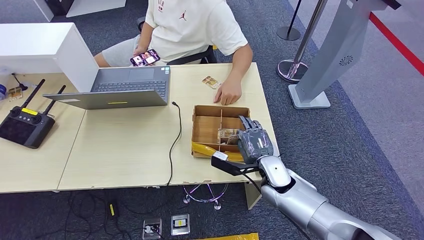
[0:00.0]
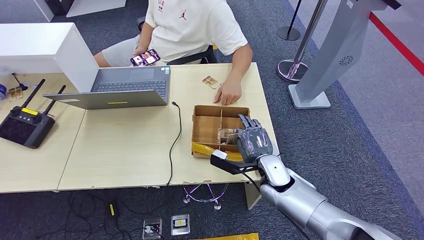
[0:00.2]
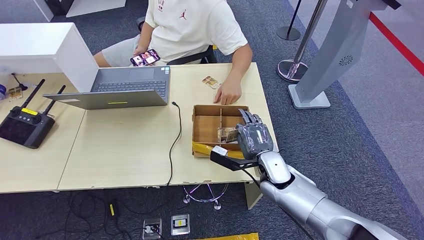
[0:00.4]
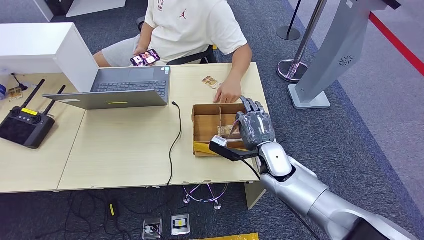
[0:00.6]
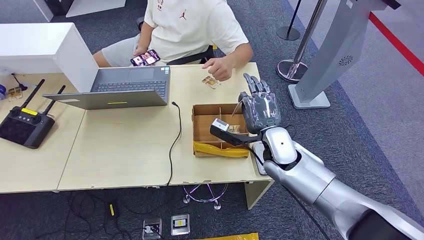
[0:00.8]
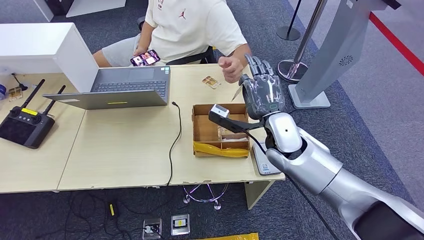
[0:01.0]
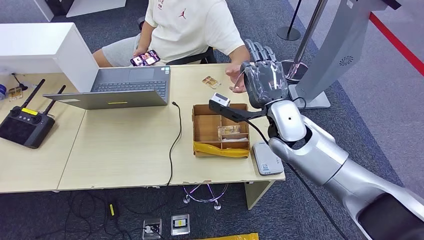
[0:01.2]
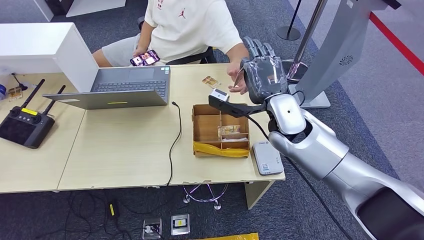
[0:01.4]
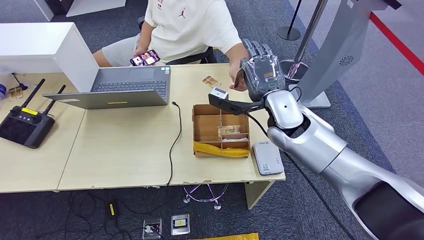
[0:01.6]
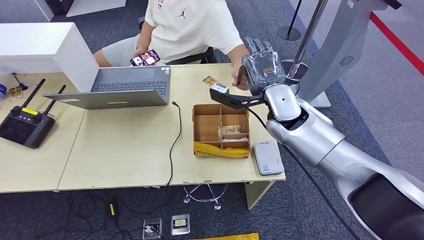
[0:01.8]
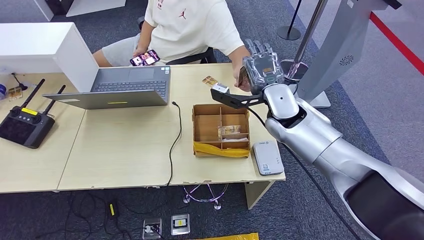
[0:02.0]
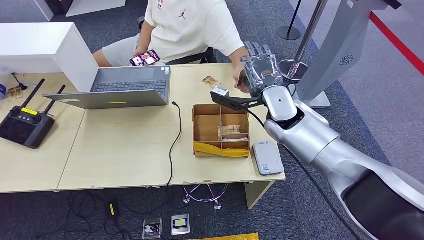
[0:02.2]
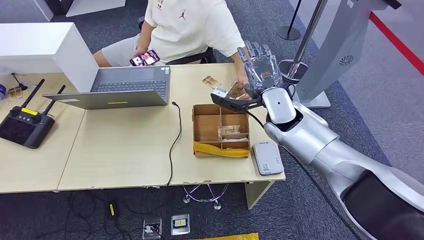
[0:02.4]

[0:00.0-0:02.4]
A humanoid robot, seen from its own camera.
Step, 0:01.2 to 0:02.2: Hand the room key to the person.
0:00.0 to 0:01.2: The right hand goes about 15 cm upward.
0:01.2 to 0:02.4: There are only small adjustments of the hands.
